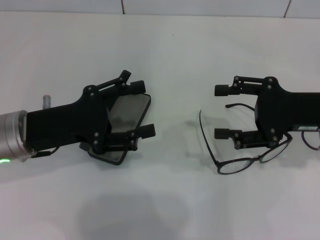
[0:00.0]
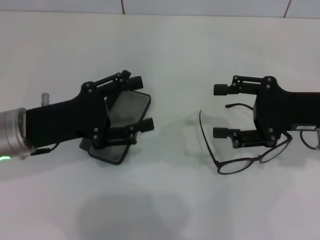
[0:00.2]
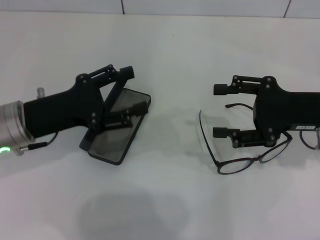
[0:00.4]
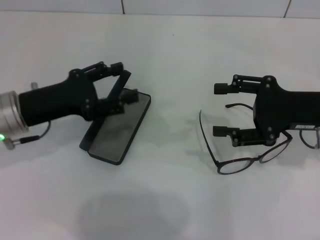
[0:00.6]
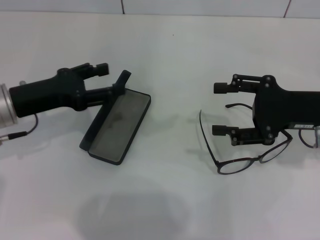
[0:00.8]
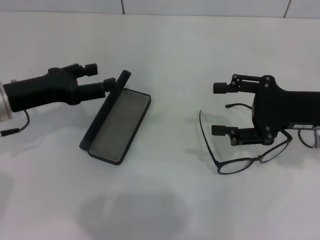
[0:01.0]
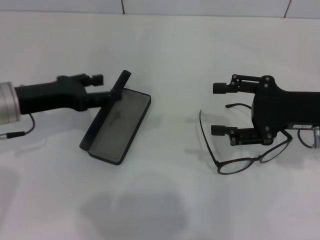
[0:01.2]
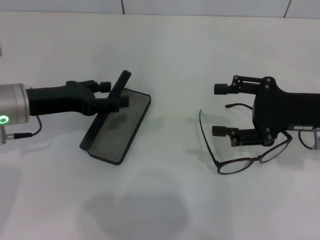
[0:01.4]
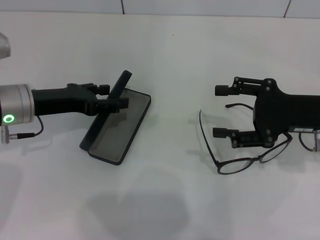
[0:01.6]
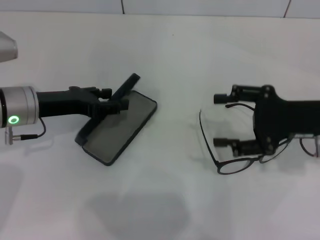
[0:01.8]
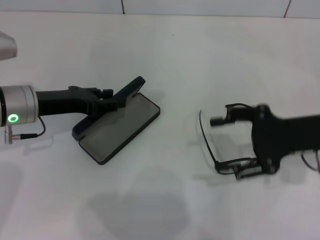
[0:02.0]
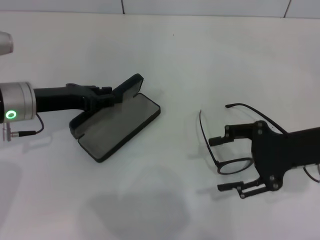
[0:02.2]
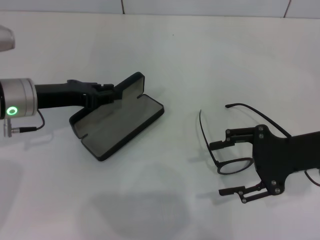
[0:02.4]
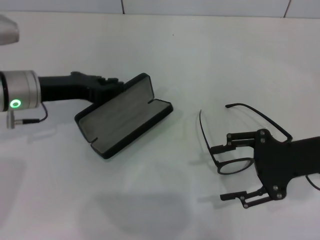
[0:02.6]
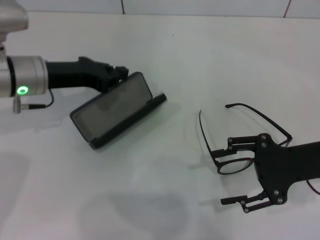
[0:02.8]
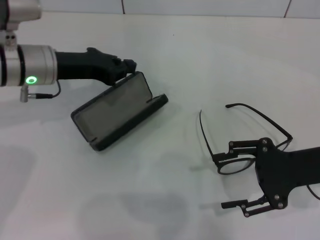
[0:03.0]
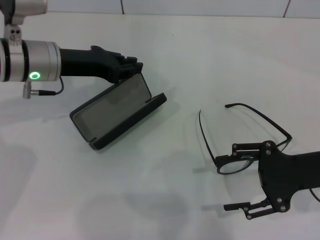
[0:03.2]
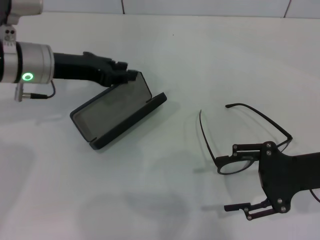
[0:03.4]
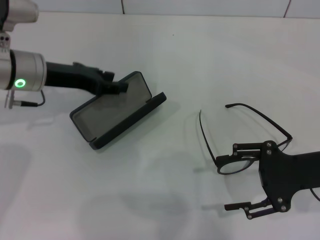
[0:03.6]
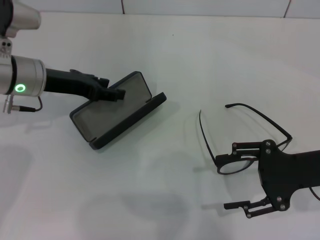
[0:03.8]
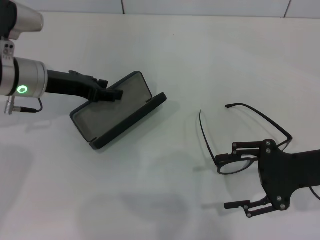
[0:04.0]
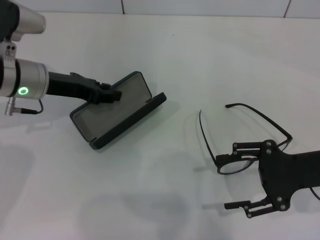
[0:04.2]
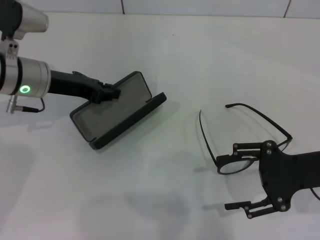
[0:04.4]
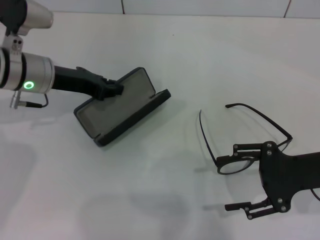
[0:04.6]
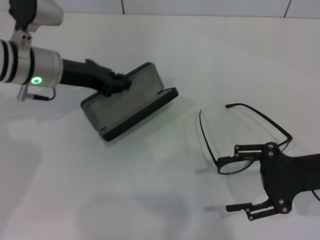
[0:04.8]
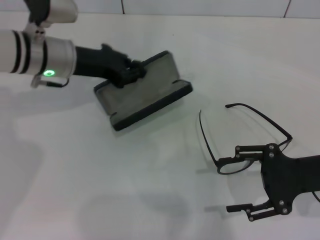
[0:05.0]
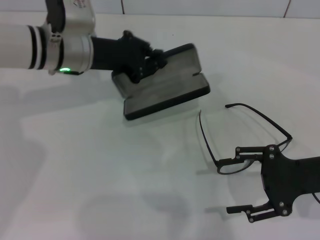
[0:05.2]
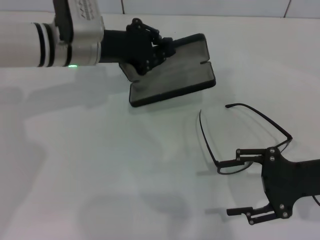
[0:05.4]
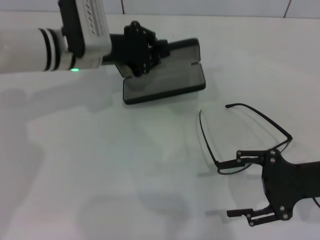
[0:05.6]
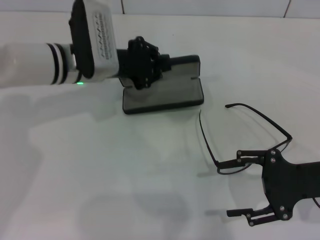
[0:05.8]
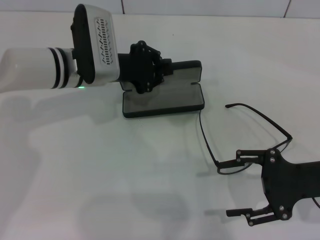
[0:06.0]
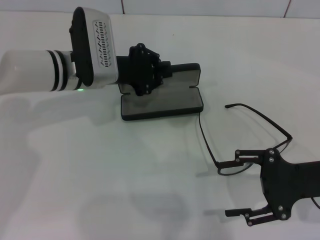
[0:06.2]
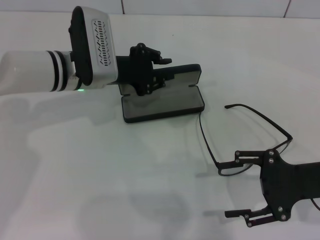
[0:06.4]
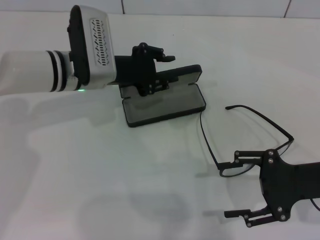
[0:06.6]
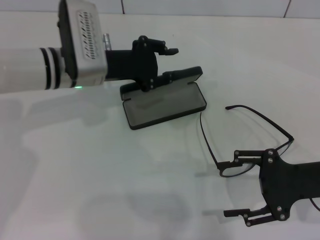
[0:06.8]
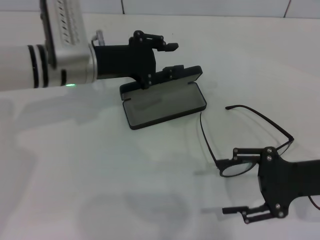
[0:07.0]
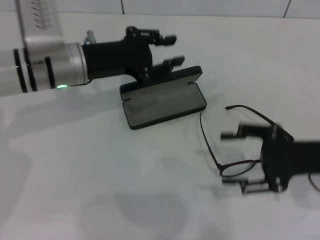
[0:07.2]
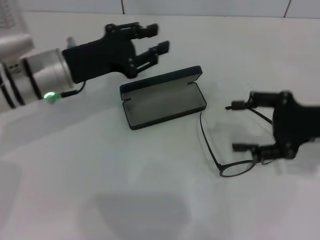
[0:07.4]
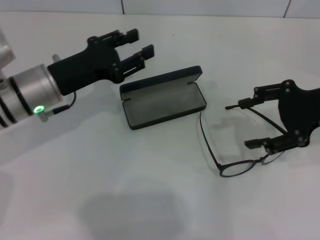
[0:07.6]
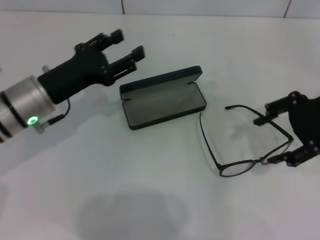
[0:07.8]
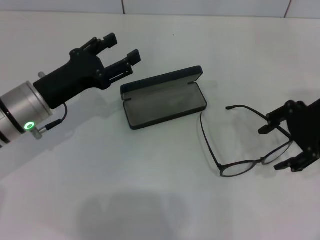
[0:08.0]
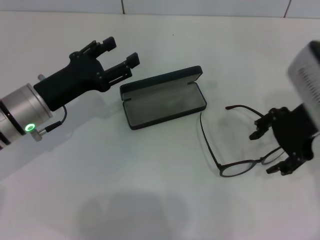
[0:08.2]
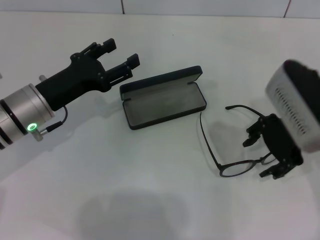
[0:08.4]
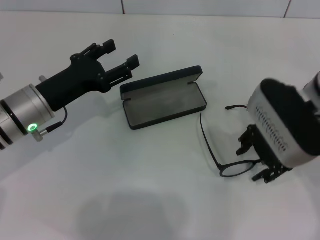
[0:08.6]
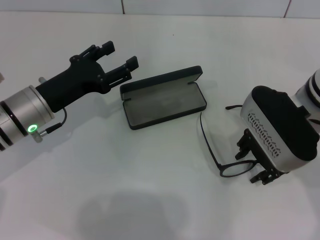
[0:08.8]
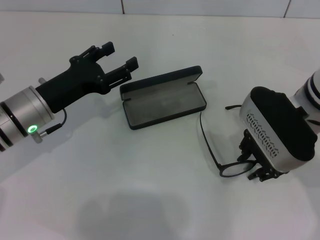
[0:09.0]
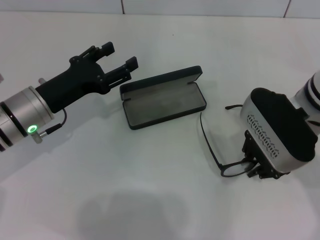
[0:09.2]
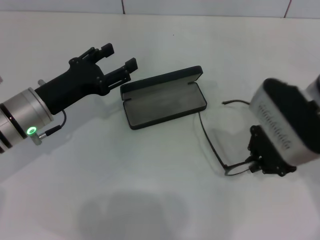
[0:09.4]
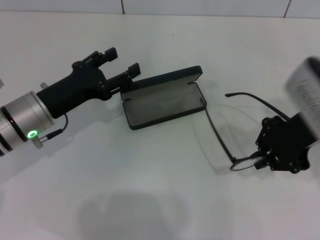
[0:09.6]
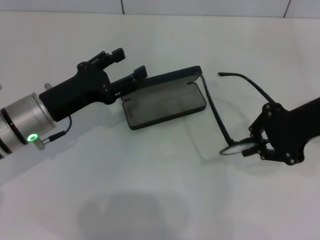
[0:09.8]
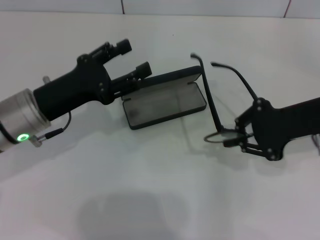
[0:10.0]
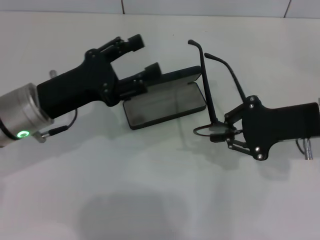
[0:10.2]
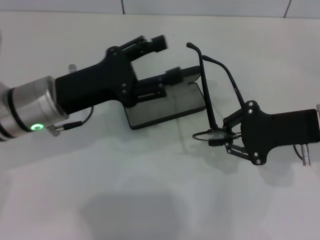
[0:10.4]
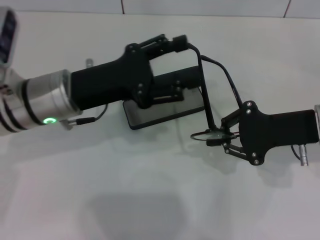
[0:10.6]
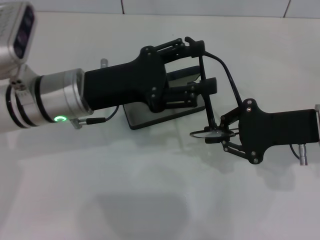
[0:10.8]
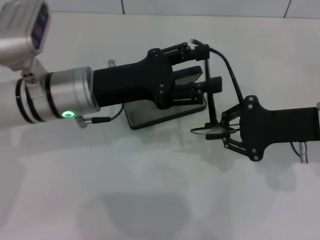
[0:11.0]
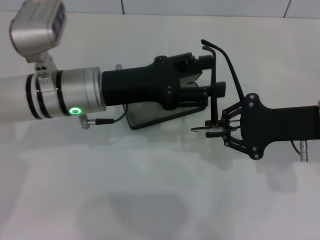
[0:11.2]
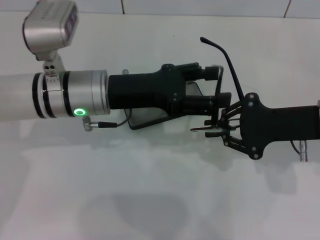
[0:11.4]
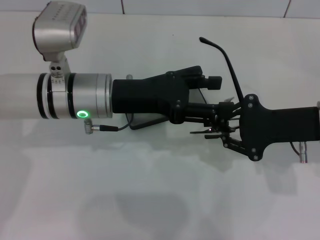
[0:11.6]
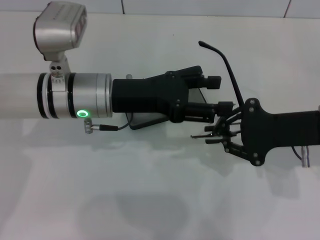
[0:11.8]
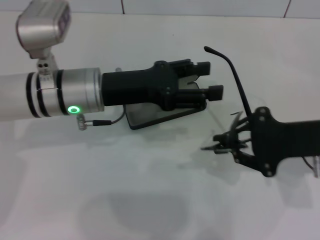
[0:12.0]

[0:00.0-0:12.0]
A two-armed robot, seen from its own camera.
Step, 0:00.0 to 0:04.2: Grab the glasses case with your left hand.
Step, 0:04.6 to 0:06.8: Place the glasses case in the center of the table with your left hand.
Step, 0:07.0 to 0:09.2: Grab the eyeglass frame with your right hand.
0:00.0 to 0:01.6: The left gripper is displaced forward by approximately 5 cm.
0:01.6 to 0:03.0: The left gripper changes place by about 5 cm, and closes its fingers.
0:03.0 to 0:04.4: The left gripper opens and closes again.
0:04.4 to 0:06.0: The left gripper heads to the right, covering some 10 cm.
0:06.0 to 0:07.6: The left gripper moves backward and to the left, about 10 cm, and opens. Meanwhile the right gripper moves upward and forward, some 10 cm.
0:07.6 to 0:09.0: The left gripper opens. The right gripper heads to the left, covering some 10 cm.
0:09.0 to 0:10.4: The left gripper shifts by approximately 5 cm; the right gripper heads to the right, covering roughly 5 cm, and closes its fingers.

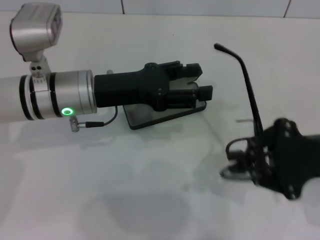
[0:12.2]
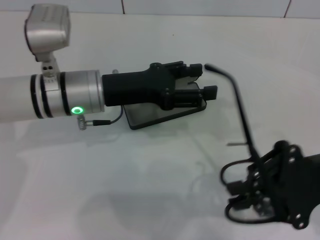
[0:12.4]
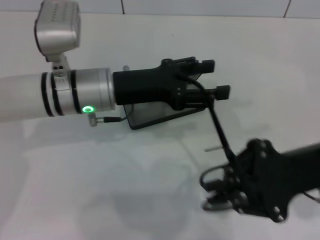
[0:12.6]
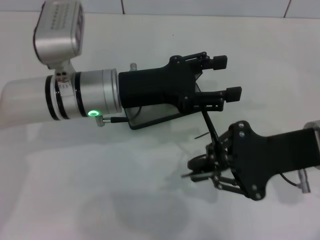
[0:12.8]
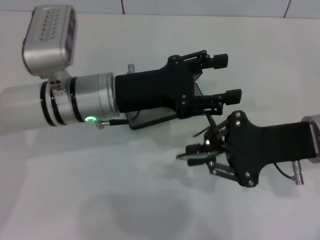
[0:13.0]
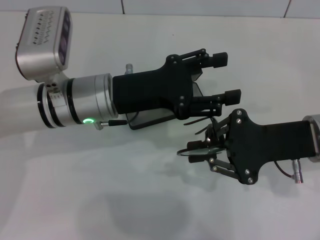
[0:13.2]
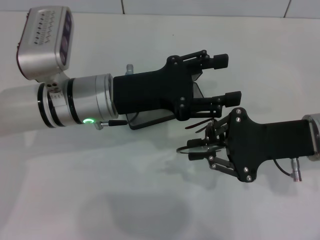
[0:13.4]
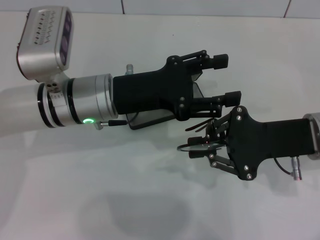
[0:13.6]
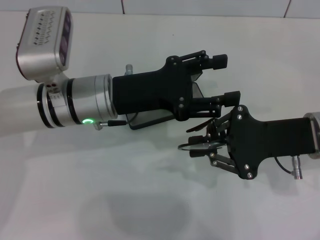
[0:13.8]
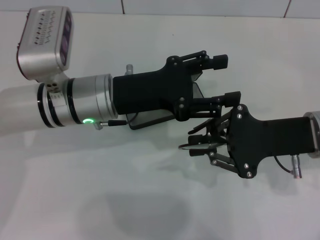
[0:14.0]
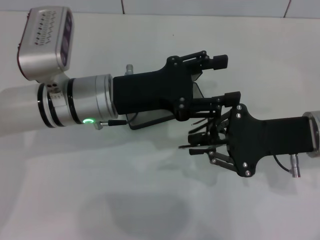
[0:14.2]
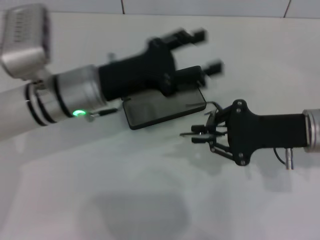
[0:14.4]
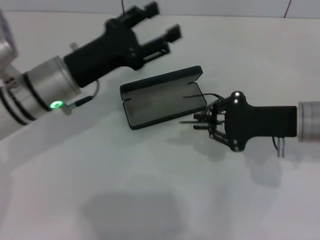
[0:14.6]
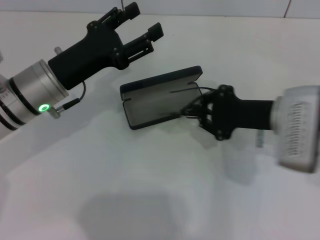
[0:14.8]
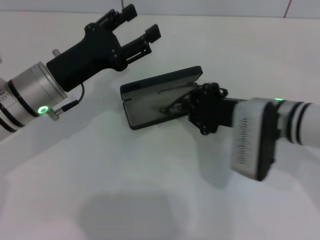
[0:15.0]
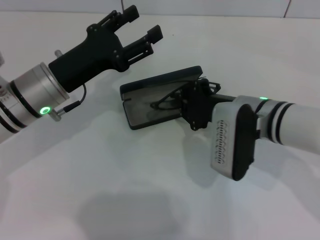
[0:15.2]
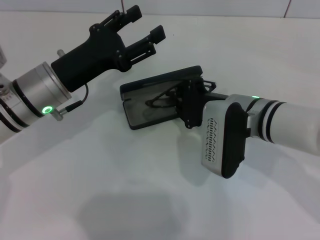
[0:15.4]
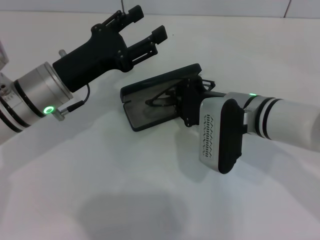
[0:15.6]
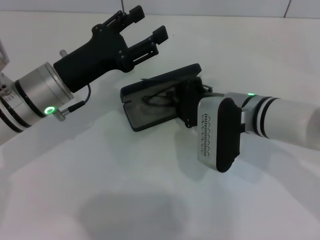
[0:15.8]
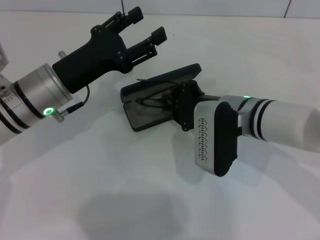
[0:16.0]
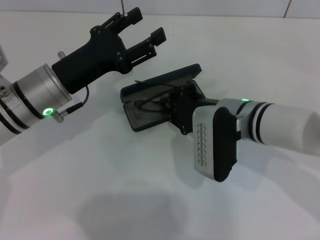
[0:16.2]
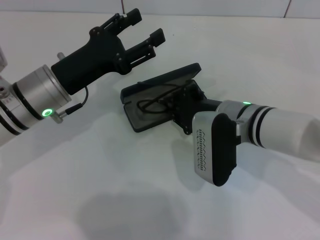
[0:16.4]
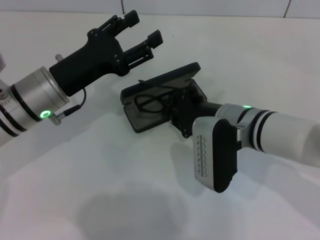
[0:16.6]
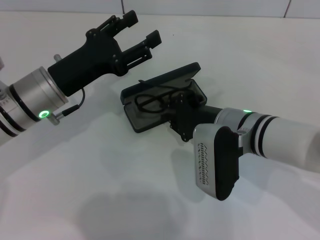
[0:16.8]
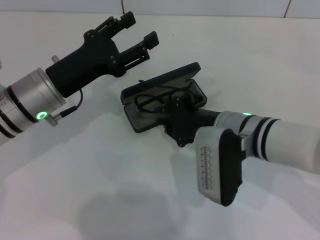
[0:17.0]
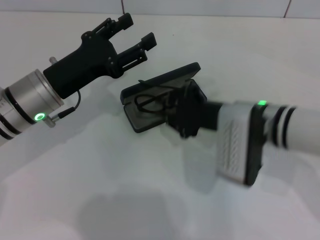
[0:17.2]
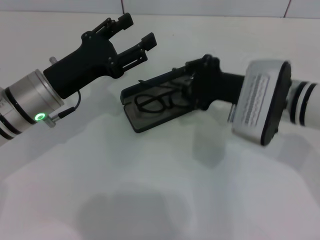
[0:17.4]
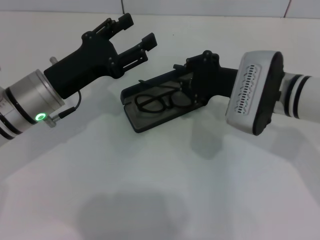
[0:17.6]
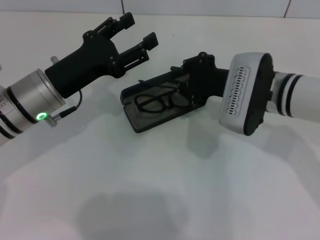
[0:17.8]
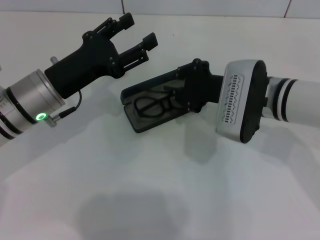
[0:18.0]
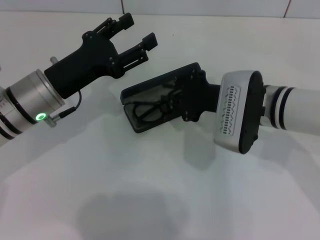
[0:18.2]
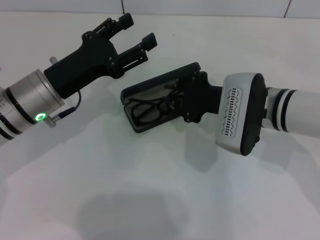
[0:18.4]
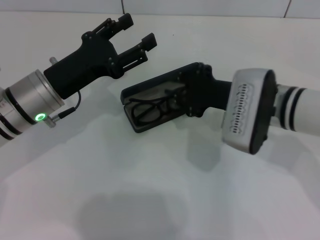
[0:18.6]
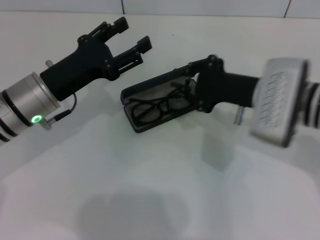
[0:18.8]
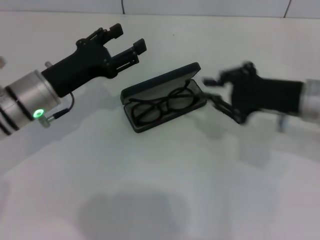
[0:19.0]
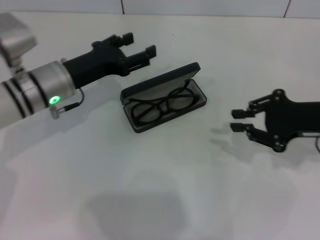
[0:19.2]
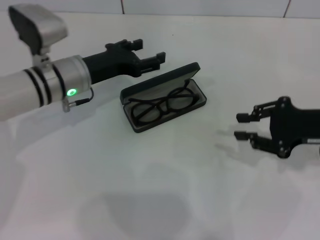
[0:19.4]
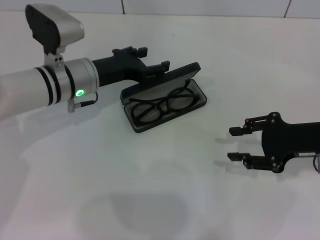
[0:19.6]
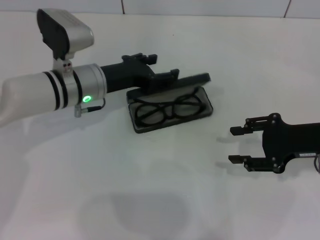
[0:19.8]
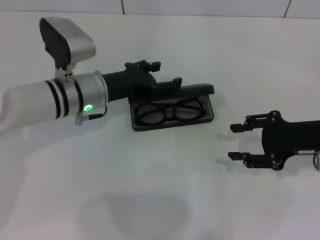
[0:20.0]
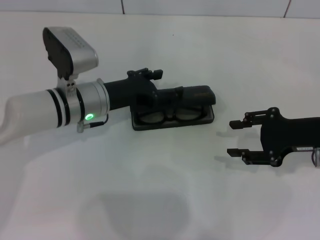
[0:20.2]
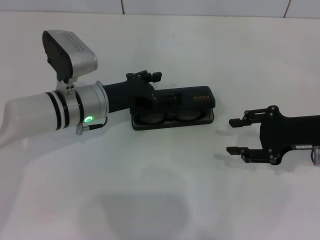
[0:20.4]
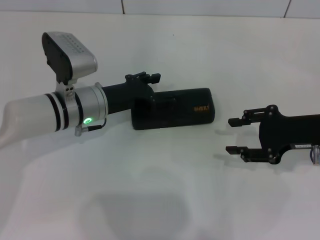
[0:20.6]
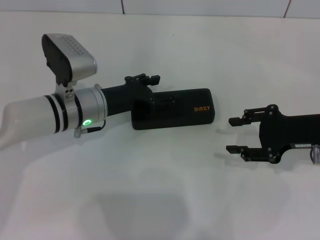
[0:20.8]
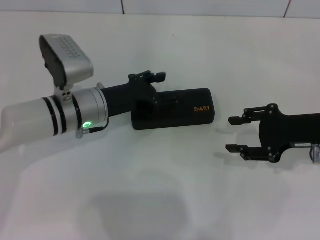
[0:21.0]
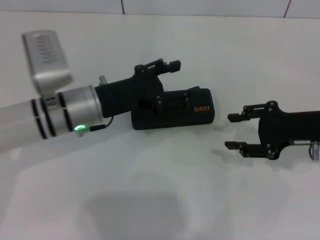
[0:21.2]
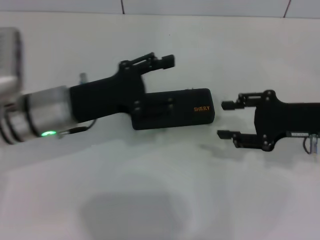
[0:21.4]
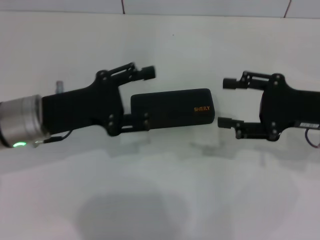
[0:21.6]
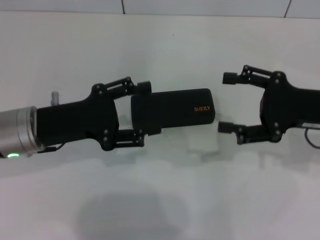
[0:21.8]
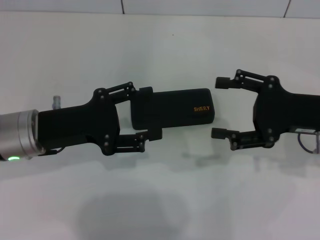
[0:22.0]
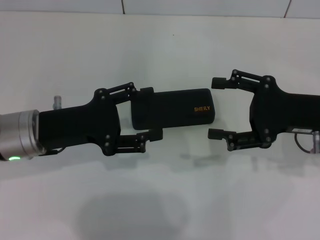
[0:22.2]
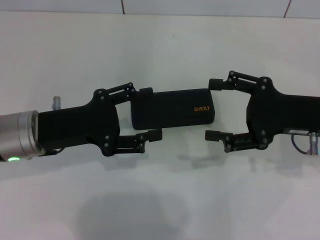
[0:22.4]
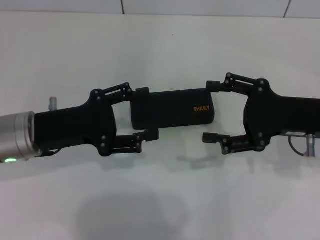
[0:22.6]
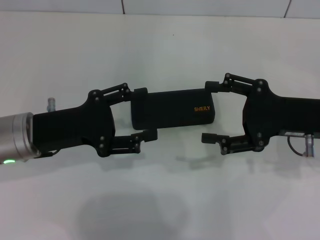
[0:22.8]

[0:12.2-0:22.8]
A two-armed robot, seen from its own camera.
Step, 0:12.2 to 0:14.2: Fold the frame with your left hand.
Step, 0:14.4 to 0:18.2: Put the glasses into the case with your right hand.
Step, 0:18.4 to 0:20.4: Close the glasses case with your left hand.
0:12.2 to 0:13.8: The right gripper ends up approximately 5 cm from where it was.
0:13.8 to 0:15.2: Both grippers travel together to the left, about 10 cm.
0:15.2 to 0:16.8: The grippers make only small movements.
0:18.2 to 0:19.8: The left gripper shifts about 5 cm forward; the right gripper is displaced to the right by about 15 cm.
0:19.8 to 0:21.2: The left gripper is displaced backward by about 5 cm.
0:21.2 to 0:22.8: The right gripper opens up. Meanwhile the left gripper shifts some 10 cm to the left and backward.
